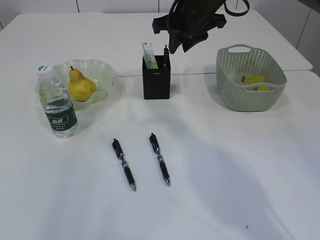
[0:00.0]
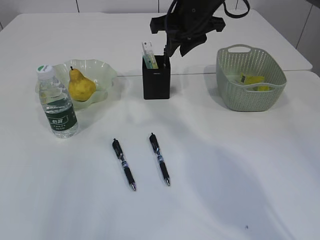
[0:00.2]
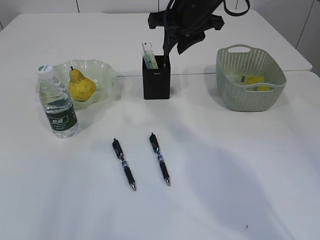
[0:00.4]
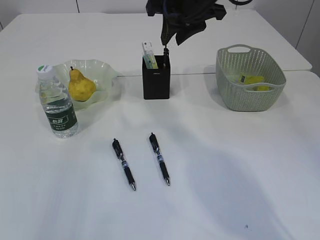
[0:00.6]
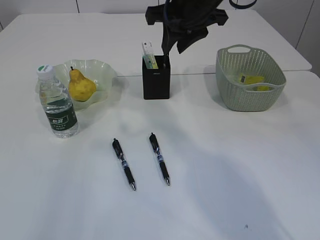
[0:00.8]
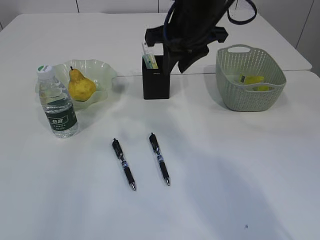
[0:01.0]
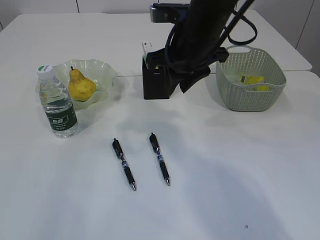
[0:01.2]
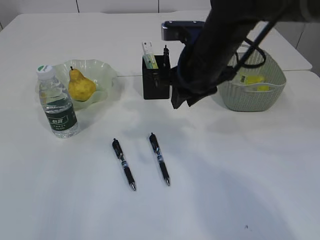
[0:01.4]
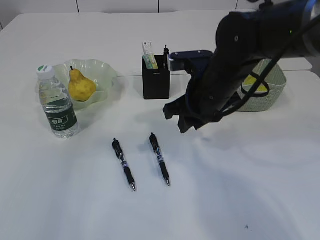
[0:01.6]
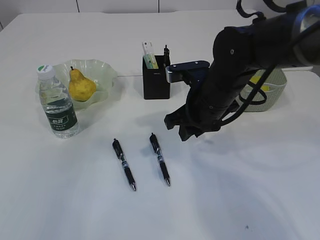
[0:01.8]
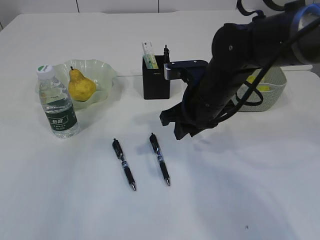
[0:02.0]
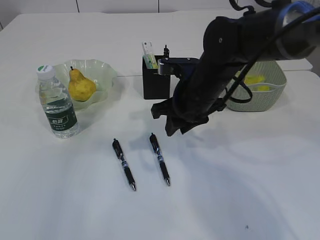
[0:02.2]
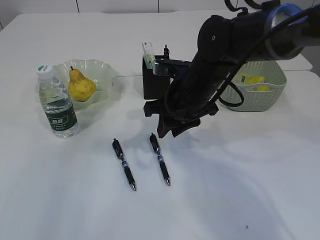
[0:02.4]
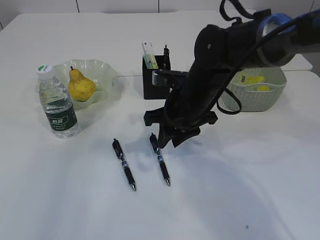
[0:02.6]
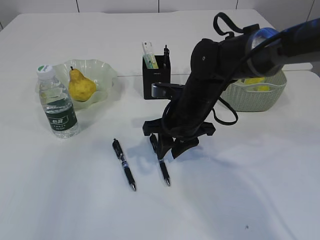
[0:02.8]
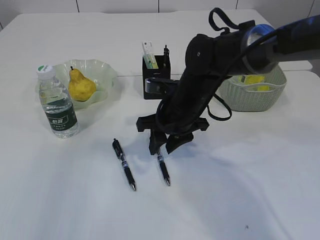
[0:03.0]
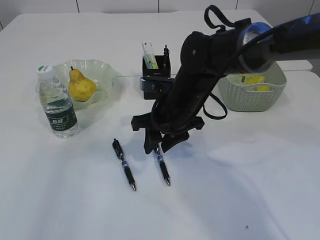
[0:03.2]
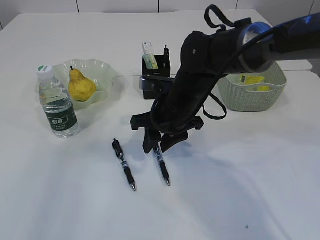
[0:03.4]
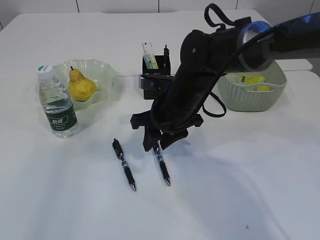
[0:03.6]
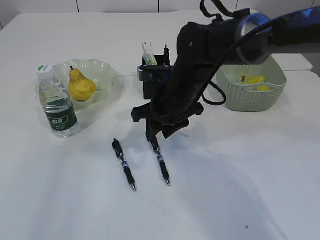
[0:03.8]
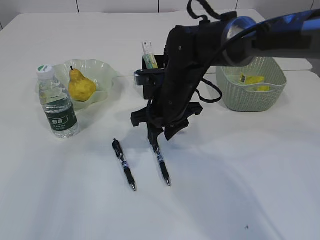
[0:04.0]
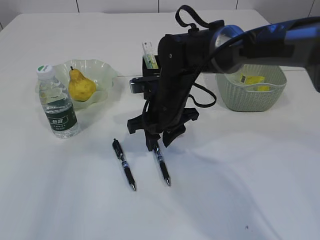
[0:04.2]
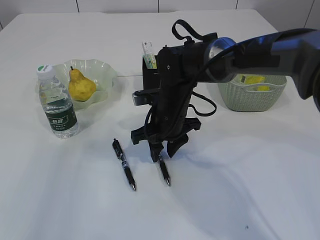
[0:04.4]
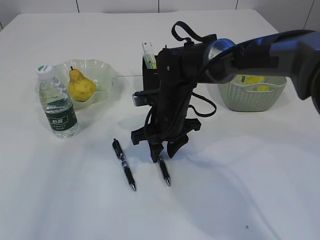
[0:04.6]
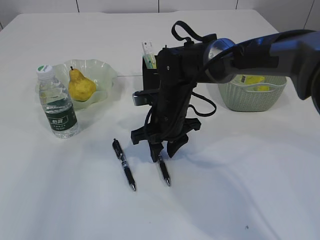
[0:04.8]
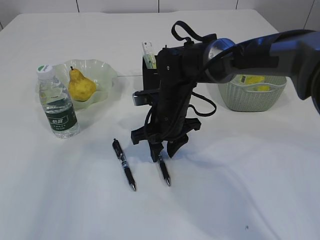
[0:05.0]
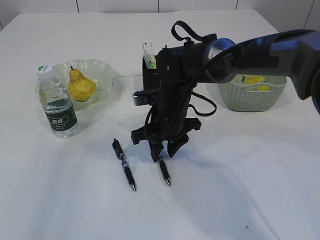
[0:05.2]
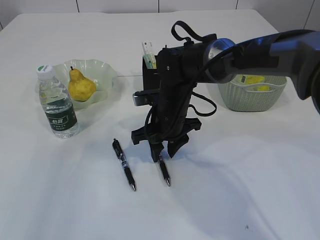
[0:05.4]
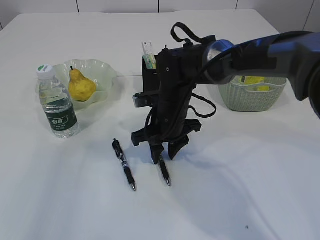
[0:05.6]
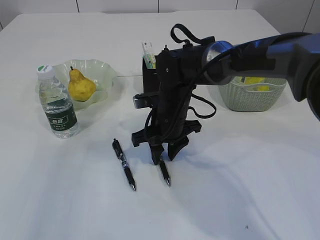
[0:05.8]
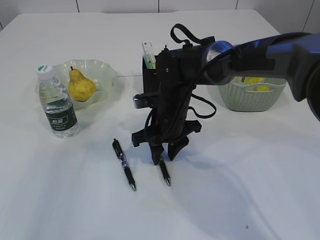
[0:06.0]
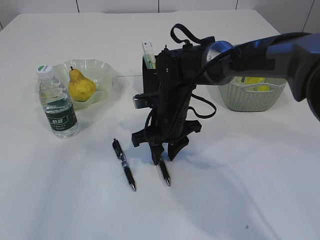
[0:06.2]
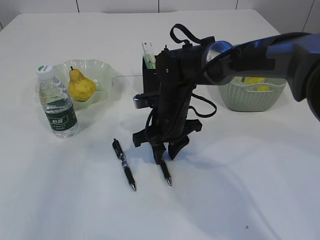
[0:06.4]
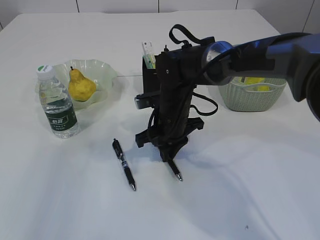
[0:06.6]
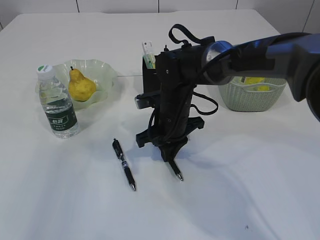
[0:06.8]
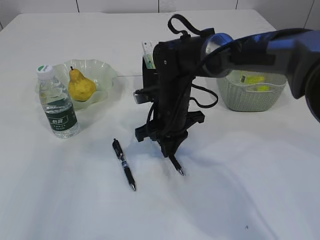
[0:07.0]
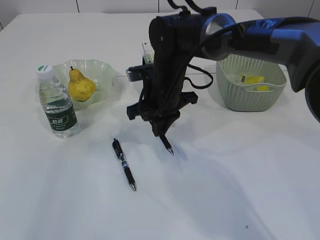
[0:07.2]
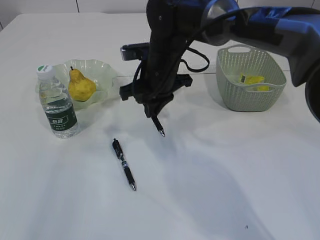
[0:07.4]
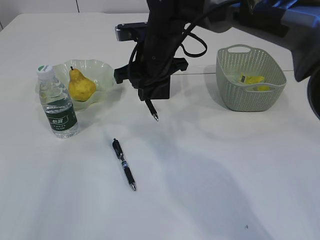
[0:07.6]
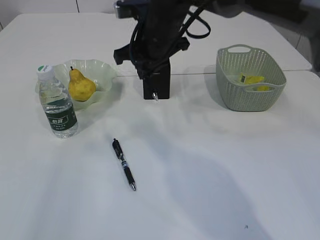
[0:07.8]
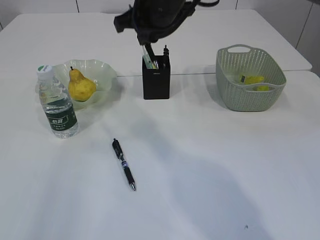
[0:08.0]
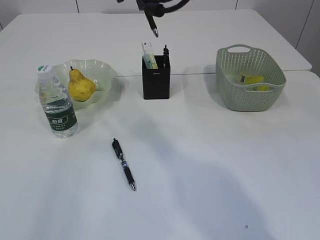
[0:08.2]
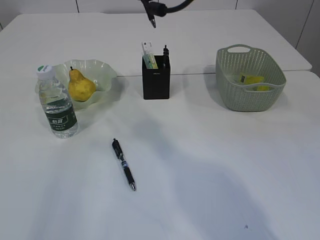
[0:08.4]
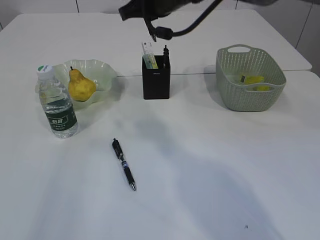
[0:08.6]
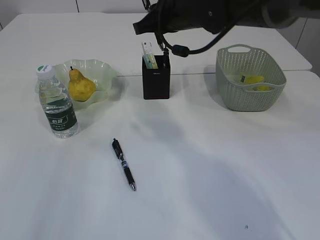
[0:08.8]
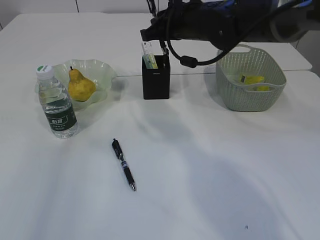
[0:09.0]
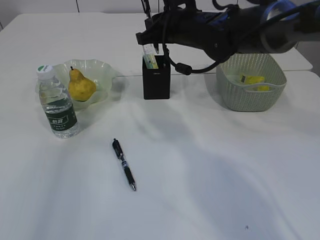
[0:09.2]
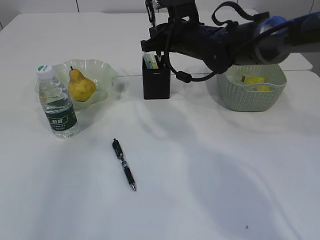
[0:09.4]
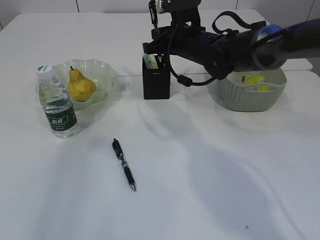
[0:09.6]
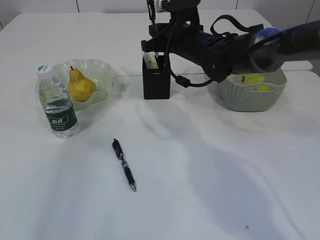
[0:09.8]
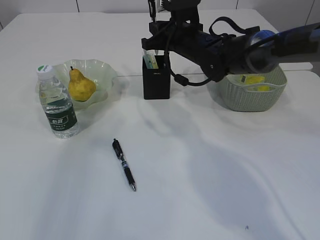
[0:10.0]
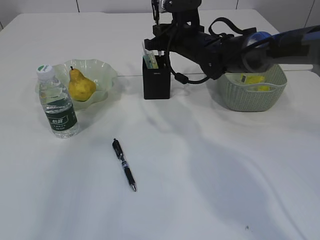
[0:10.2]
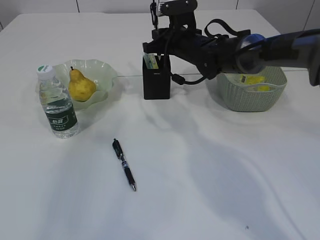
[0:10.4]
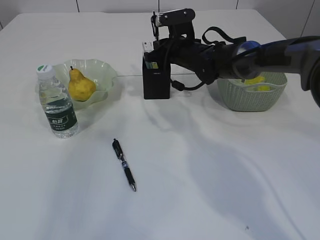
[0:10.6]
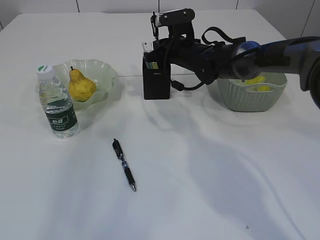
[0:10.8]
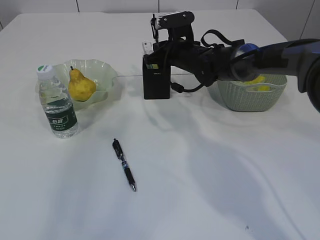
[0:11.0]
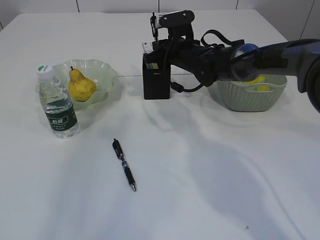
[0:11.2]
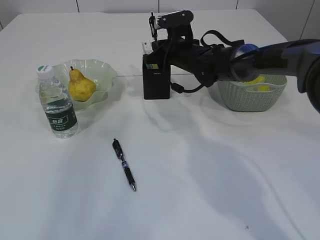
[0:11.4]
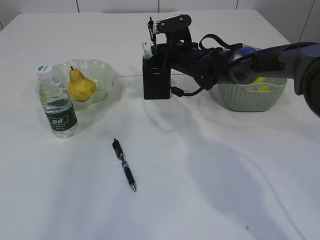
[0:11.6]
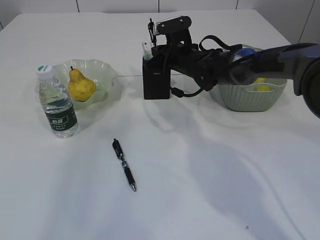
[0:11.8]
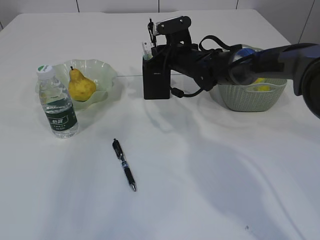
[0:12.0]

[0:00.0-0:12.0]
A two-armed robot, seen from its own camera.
Step, 0:00.0 to 0:07.4: Pick up the pen with right arm.
0:00.0 to 0:01.6: The right gripper is displaced backward and downward by some 15 cm.
0:01.6 to 0:03.0: The right gripper travels downward by roughly 5 cm.
0:03.0 to 0:04.4: The grippers make only small movements.
0:04.4 to 0:06.0: Both grippers stay about where they are.
0:06.0 to 0:07.6: The right gripper is displaced upward by approximately 10 cm, and closes up.
0:07.6 to 0:09.0: The right gripper heads to the right, covering about 5 cm, and goes upward and returns, about 10 cm each way.
0:09.0 to 0:10.4: The right gripper heads downward and forward, covering about 10 cm.
0:10.4 to 0:12.0: There are only small adjustments of the grippers.

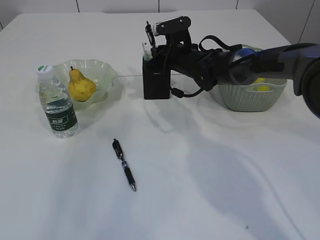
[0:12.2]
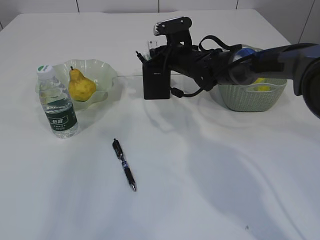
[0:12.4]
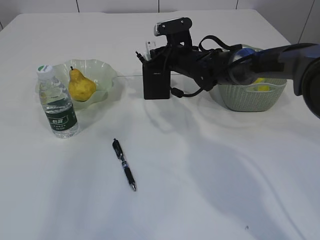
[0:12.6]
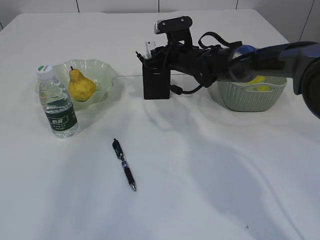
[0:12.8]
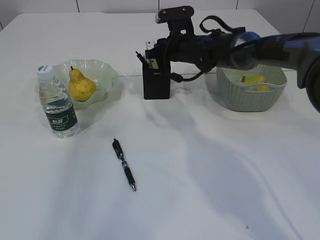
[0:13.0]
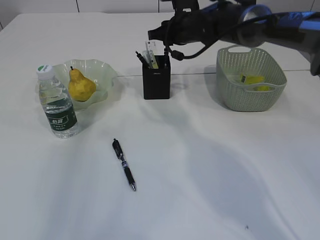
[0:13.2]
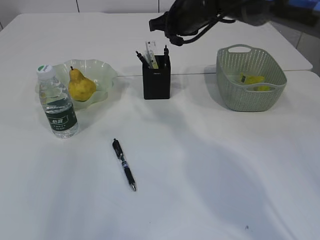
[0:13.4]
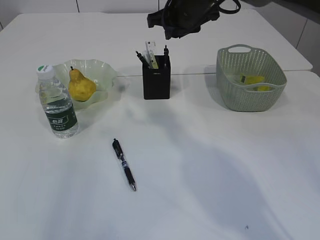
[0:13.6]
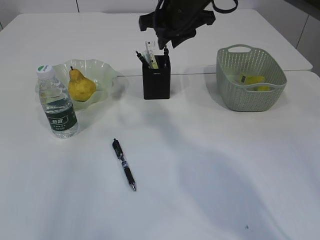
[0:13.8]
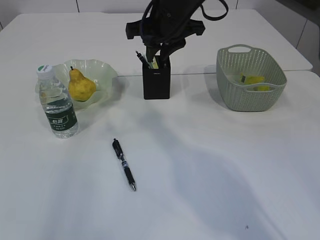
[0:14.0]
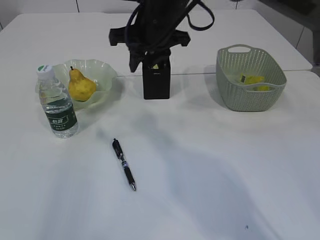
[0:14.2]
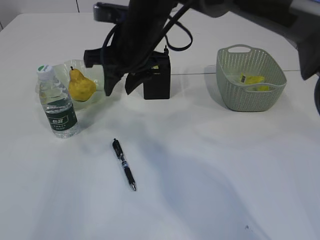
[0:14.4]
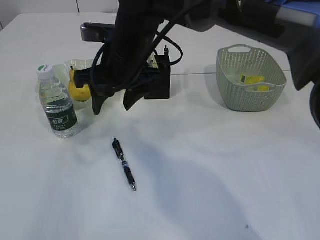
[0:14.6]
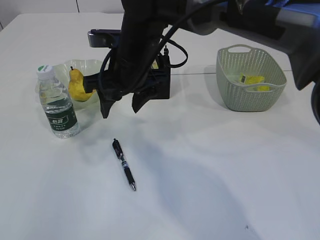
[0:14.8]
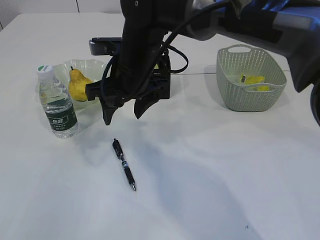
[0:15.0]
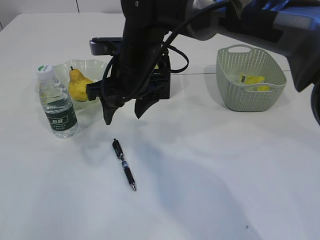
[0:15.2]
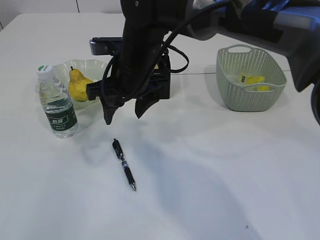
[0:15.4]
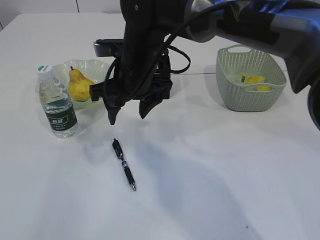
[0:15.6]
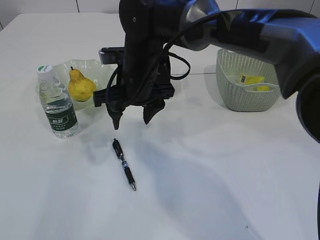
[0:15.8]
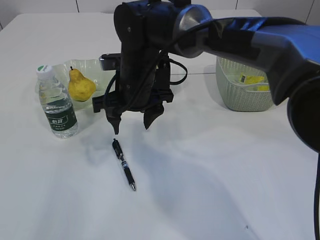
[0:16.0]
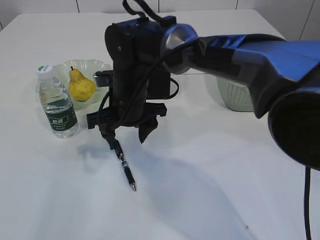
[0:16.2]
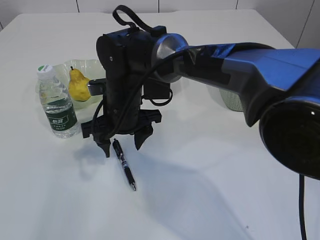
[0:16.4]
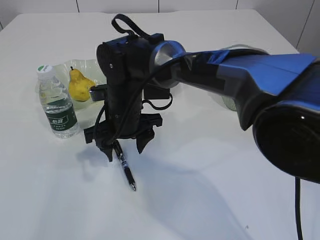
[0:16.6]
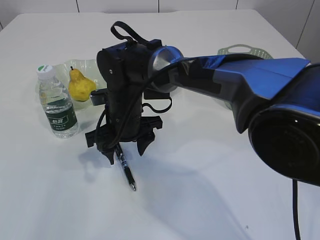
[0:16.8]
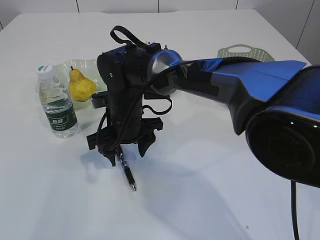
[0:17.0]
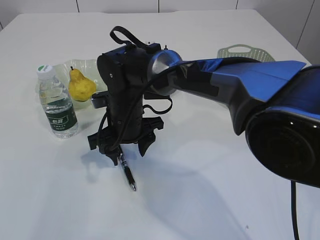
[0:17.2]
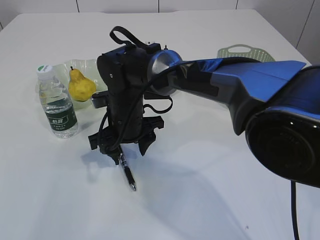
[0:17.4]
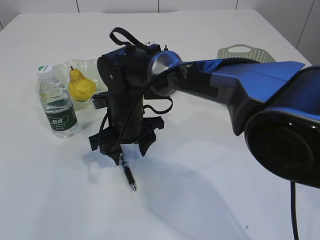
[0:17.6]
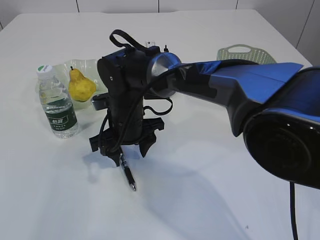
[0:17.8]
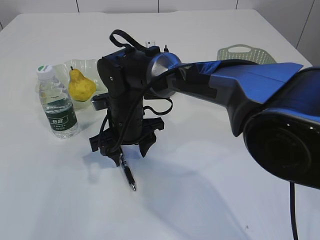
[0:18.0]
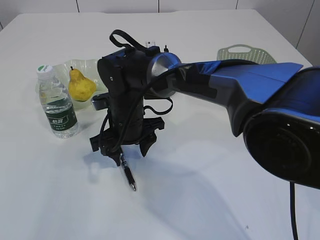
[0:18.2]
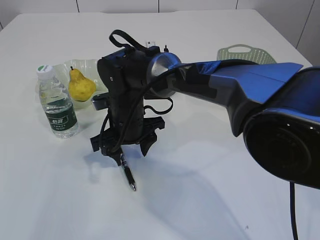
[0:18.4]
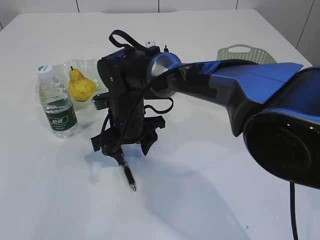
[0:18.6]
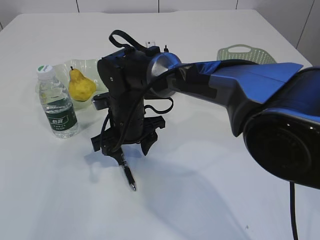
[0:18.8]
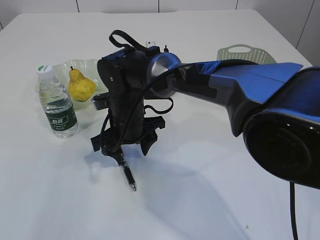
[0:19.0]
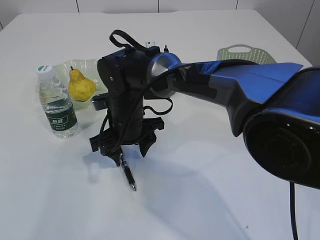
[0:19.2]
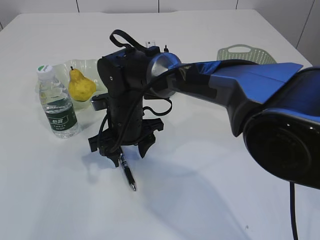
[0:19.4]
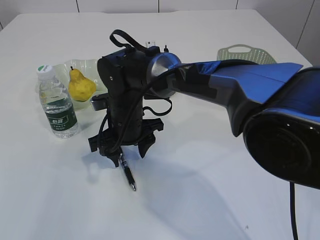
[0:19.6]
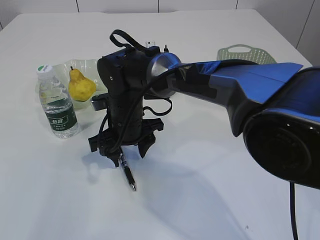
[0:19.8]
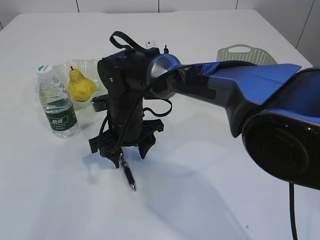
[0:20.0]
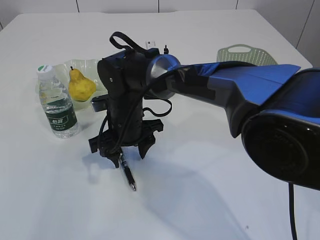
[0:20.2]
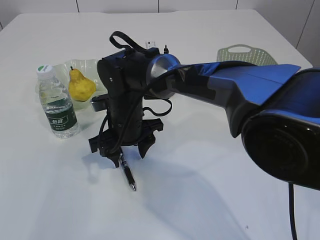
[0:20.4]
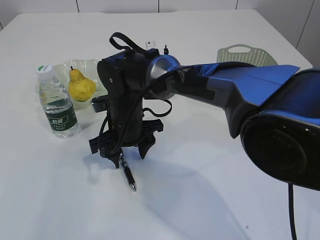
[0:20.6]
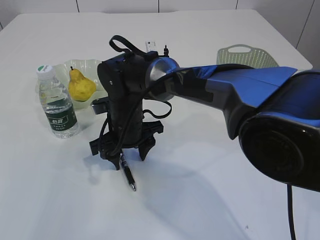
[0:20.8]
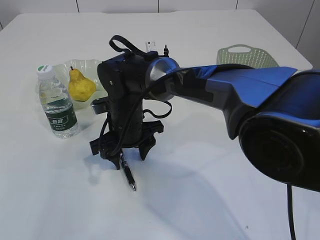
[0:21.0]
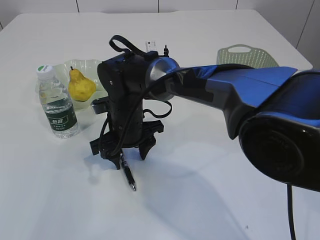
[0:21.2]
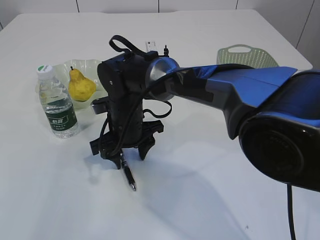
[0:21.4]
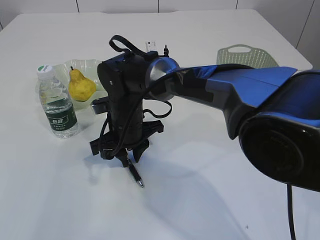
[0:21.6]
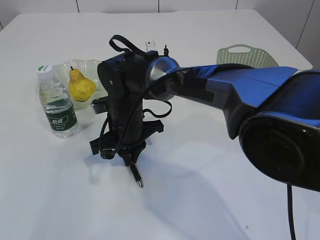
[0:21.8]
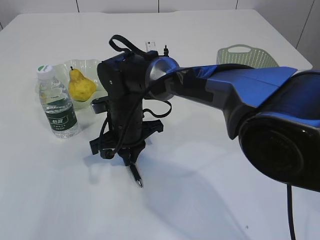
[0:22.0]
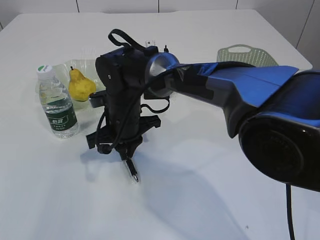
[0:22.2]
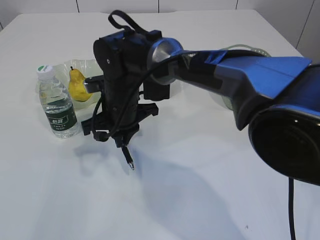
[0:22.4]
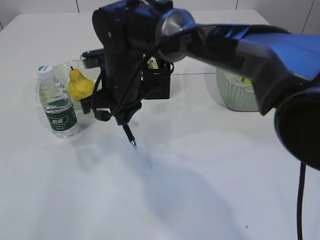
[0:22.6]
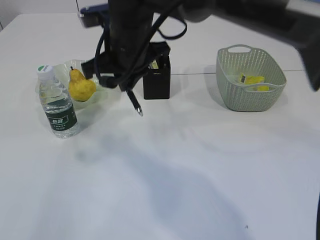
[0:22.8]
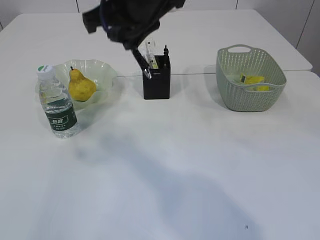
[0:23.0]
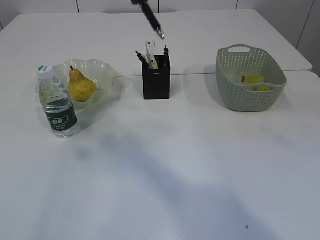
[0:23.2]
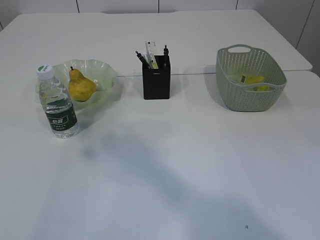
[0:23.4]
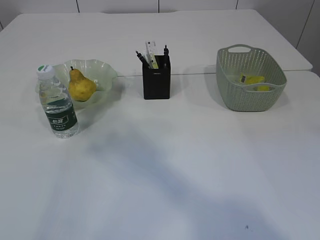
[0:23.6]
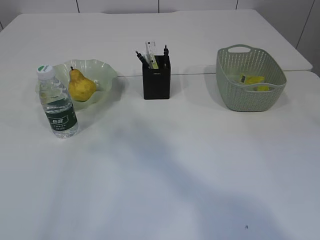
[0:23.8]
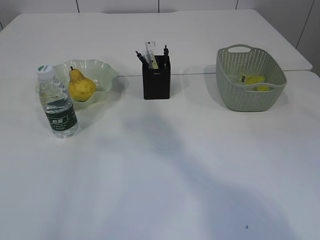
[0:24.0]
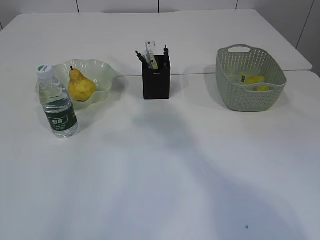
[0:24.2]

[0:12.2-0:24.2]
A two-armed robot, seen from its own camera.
Step, 0:13.6 to 0:22.6: Pick up the pen with right arm.
0:12.2 to 0:13.8: The right gripper shifts approximately 15 cm upward and backward.
0:13.8 to 0:15.2: The right gripper is displaced to the left, backward and downward by roughly 15 cm, and opens up.
0:15.2 to 0:16.6: The right gripper heads downward, covering some 10 cm.
0:16.6 to 0:18.2: The grippers make only small movements.
0:18.2 to 0:21.2: Neither gripper changes place.
0:21.2 to 0:22.6: The right gripper heads upward, covering about 10 cm, and closes its fingers.
0:22.6 to 0:24.2: The right gripper shifts roughly 25 cm upward and to the right.
